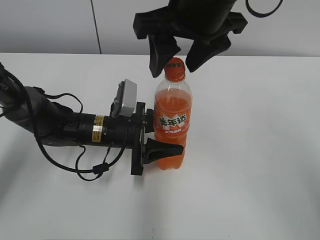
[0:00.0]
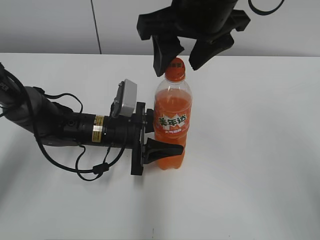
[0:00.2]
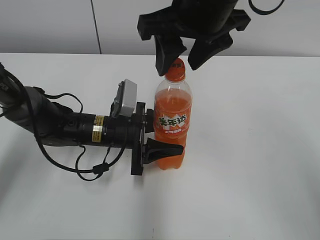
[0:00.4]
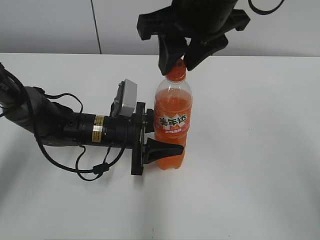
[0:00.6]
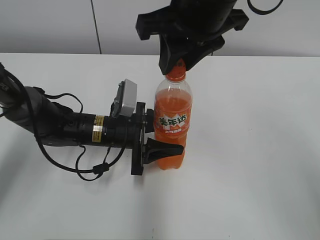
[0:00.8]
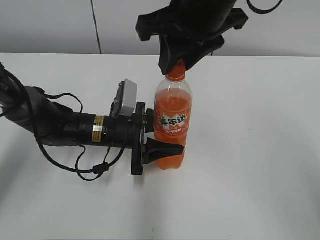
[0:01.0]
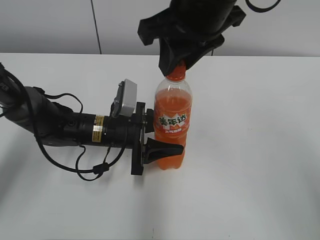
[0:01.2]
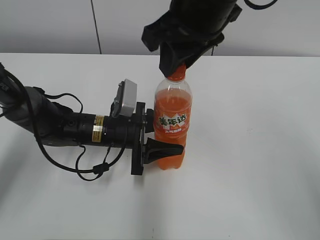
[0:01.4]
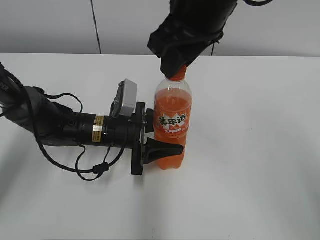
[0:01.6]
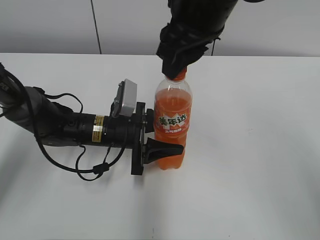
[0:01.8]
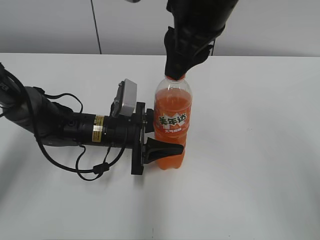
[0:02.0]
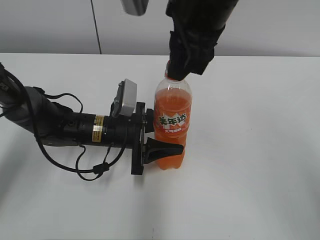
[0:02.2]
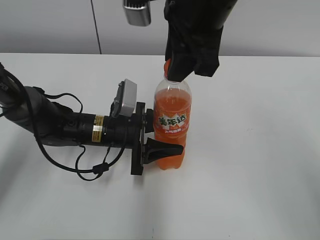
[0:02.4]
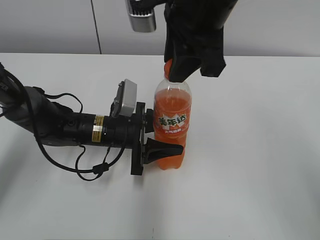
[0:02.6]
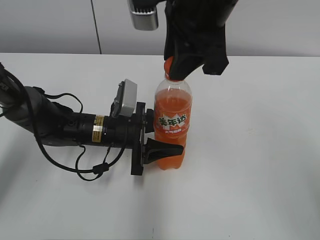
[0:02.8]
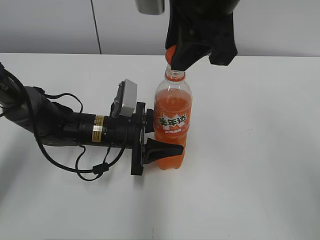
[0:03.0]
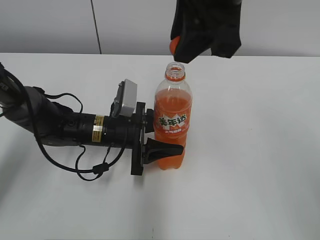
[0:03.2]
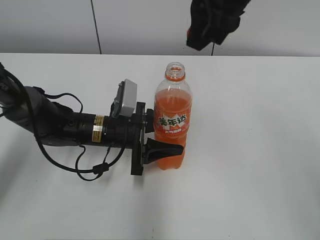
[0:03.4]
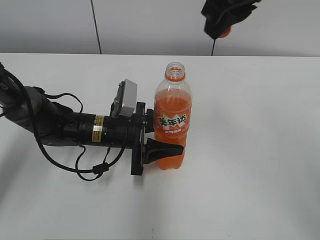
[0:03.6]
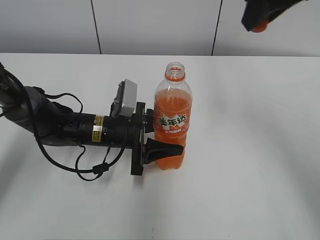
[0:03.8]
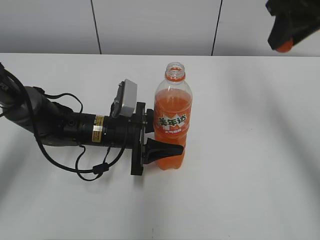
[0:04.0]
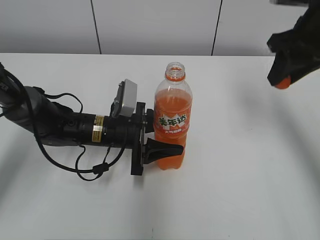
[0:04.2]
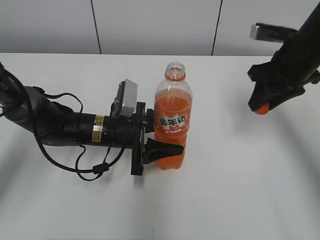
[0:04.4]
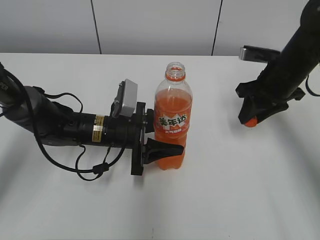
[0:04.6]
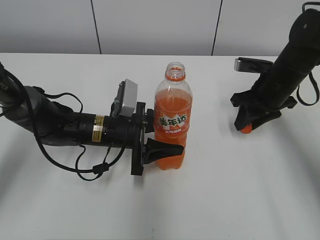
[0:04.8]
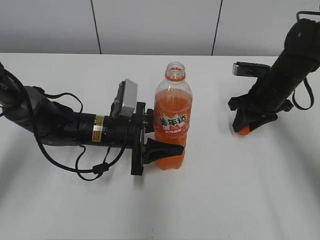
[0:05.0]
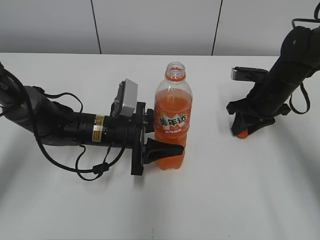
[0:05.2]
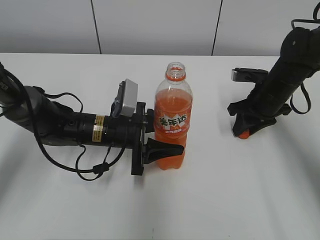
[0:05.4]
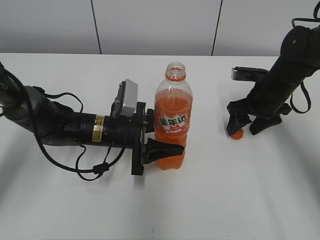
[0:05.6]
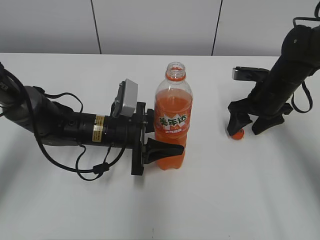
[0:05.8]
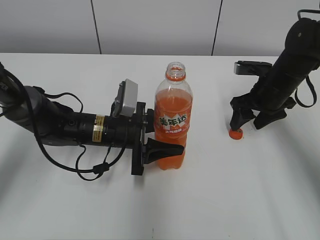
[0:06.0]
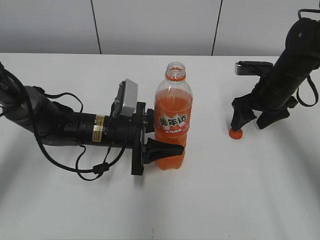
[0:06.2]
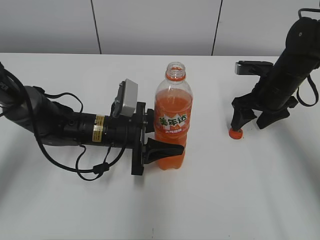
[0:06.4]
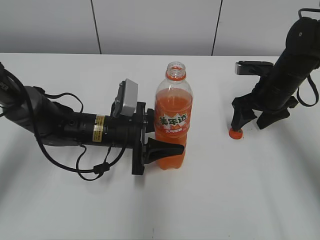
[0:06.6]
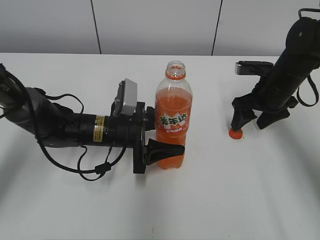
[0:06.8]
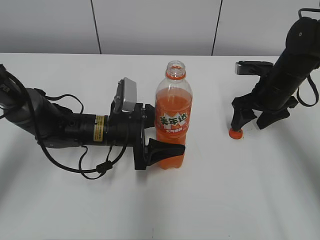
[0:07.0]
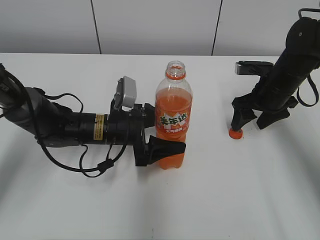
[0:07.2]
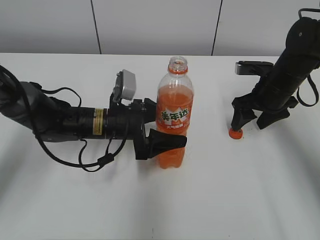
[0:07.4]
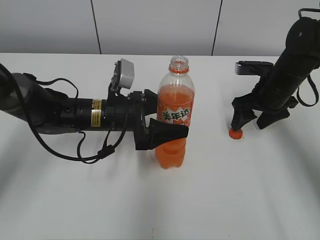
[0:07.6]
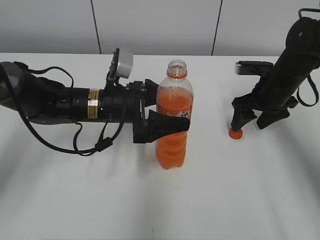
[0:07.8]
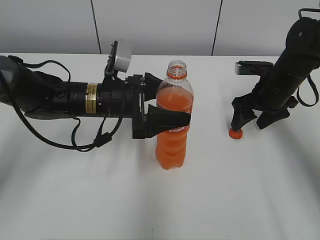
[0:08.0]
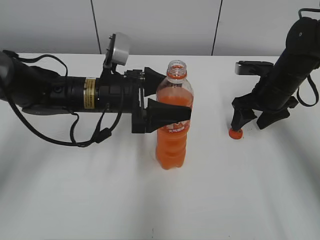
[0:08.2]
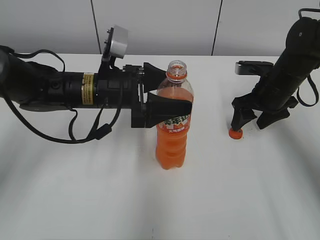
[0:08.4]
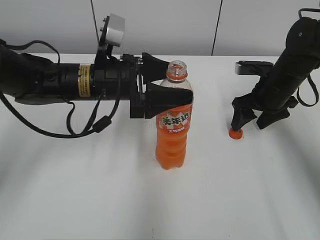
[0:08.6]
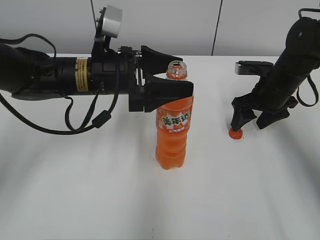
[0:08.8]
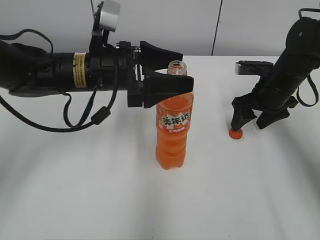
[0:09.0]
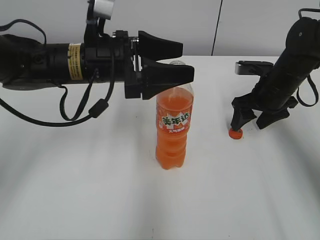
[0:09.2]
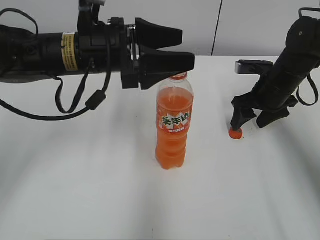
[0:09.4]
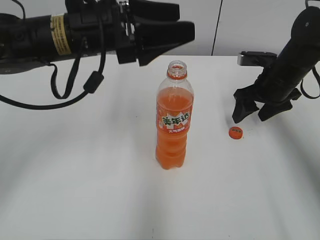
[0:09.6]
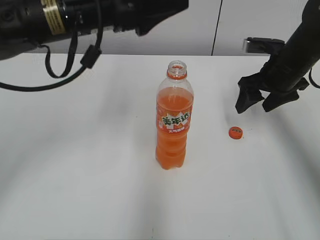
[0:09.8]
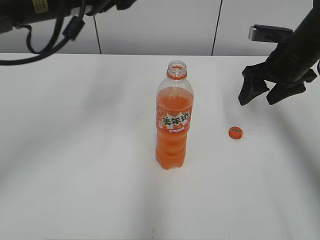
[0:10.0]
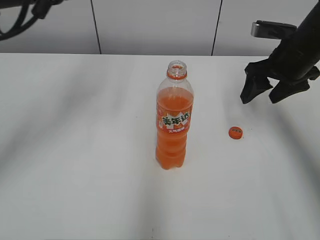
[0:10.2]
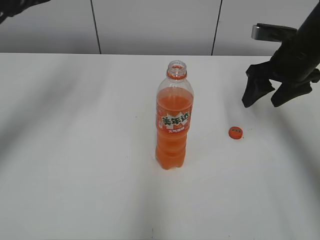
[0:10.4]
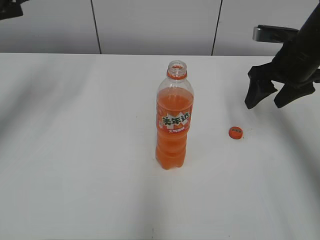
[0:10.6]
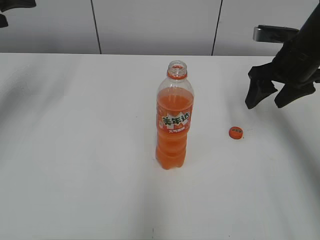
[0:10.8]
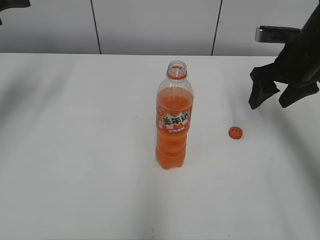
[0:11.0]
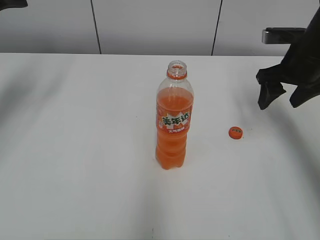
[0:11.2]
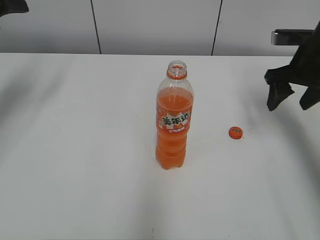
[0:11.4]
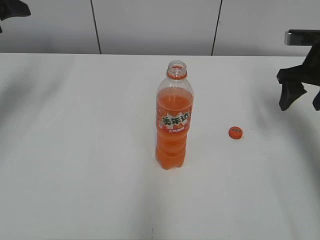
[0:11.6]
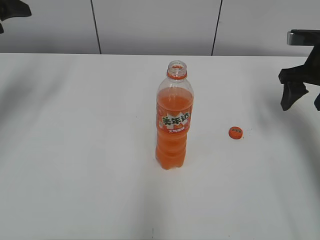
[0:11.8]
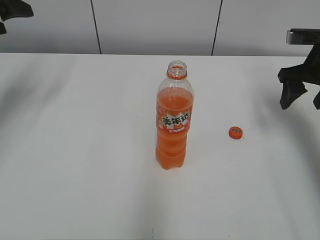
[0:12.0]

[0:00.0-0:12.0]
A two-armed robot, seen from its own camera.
Step, 0:00.0 to 0:02.6: Unscrew the bottle cap with the right gripper while holding the bottle with the left gripper.
Step, 0:03.0 to 0:06.0: Place the bottle cap on the table with the right gripper.
Step, 0:06.2 to 0:07.6: Place the bottle on the table with the left gripper.
0:00.0 to 0:01.6: The right gripper closes up.
0:03.0 to 0:04.4: The right gripper travels to the right, downward and forward by about 25 cm.
0:04.4 to 0:06.0: The right gripper goes roughly 10 cm downward, and opens up.
0:06.0 to 0:07.6: The left gripper opens its fingers.
0:07.6 to 0:09.0: The left gripper goes roughly 10 cm upward.
0:09.0 to 0:10.4: The left gripper goes about 20 cm to the left and upward. Meanwhile the right gripper shifts about 10 cm upward.
0:10.4 to 0:12.0: The left gripper moves to the left, approximately 10 cm, while the right gripper shifts about 5 cm to the right.

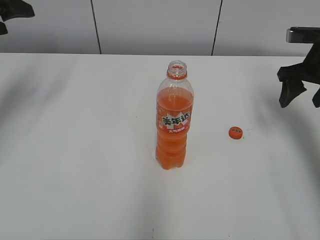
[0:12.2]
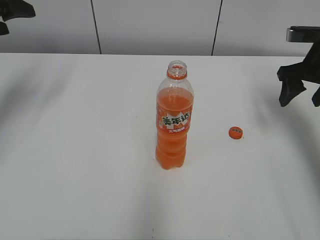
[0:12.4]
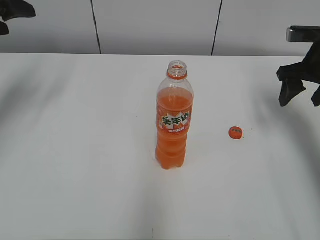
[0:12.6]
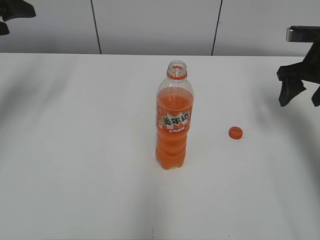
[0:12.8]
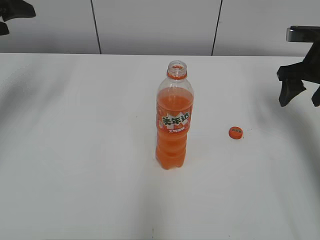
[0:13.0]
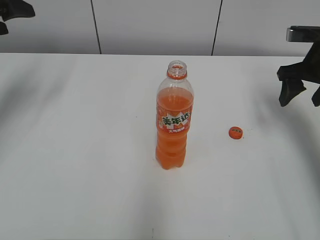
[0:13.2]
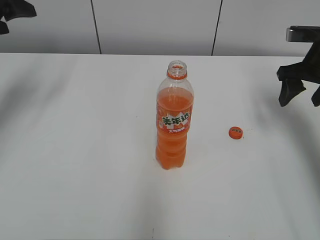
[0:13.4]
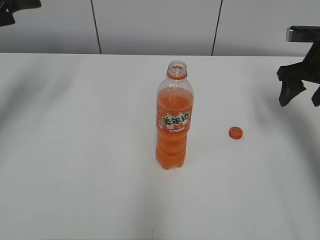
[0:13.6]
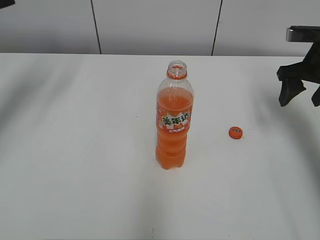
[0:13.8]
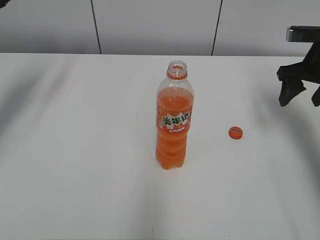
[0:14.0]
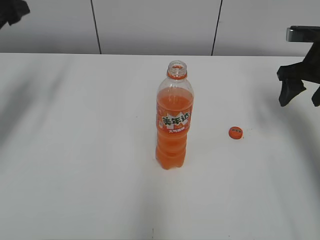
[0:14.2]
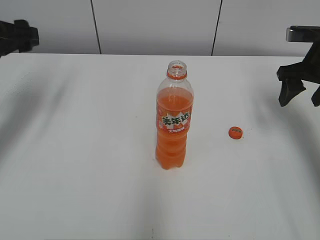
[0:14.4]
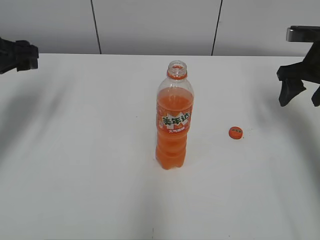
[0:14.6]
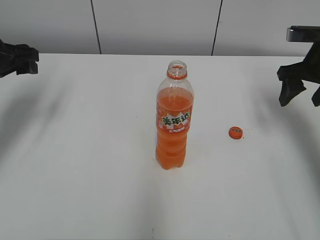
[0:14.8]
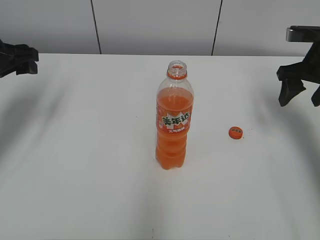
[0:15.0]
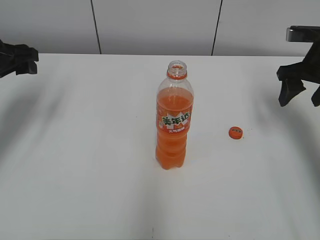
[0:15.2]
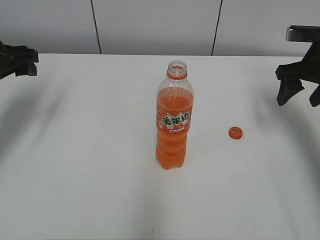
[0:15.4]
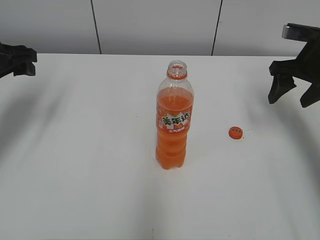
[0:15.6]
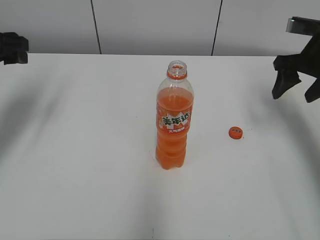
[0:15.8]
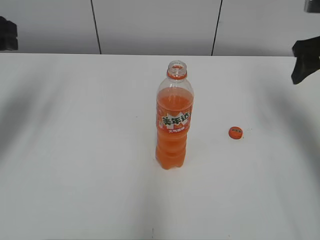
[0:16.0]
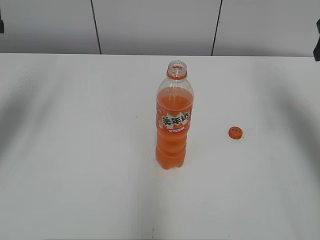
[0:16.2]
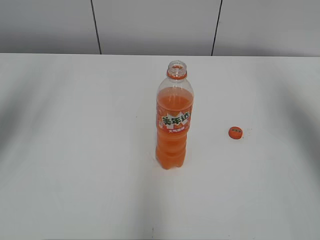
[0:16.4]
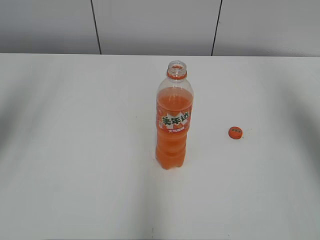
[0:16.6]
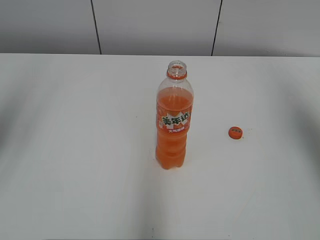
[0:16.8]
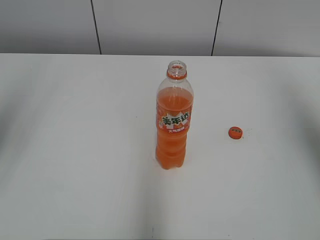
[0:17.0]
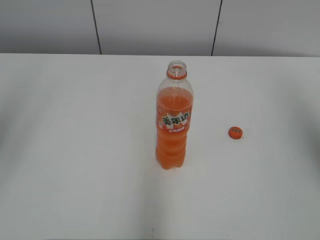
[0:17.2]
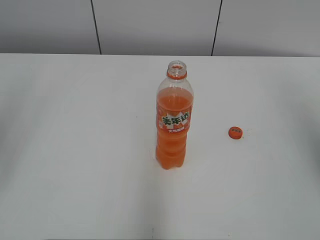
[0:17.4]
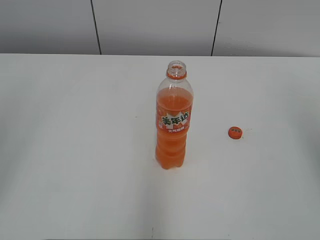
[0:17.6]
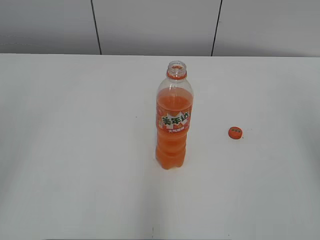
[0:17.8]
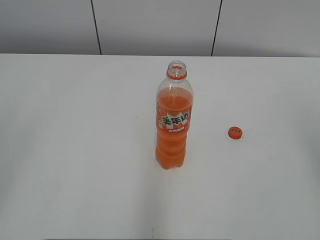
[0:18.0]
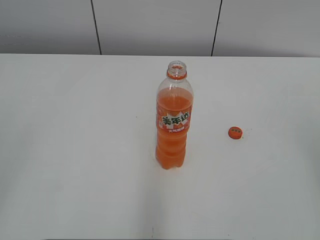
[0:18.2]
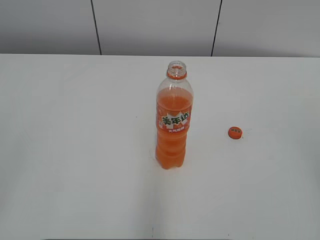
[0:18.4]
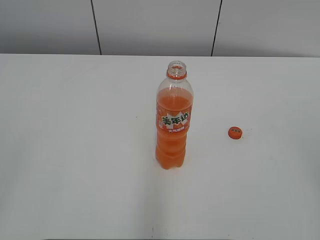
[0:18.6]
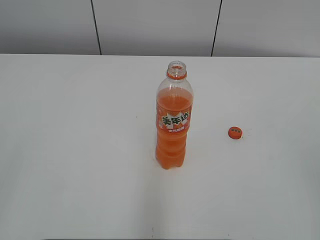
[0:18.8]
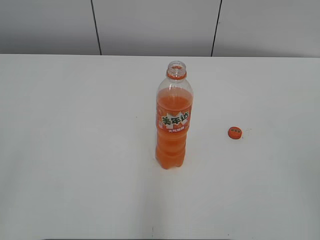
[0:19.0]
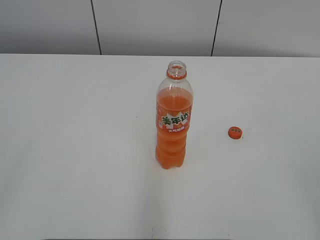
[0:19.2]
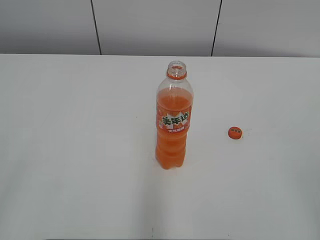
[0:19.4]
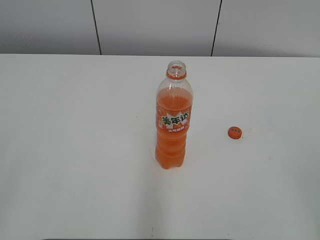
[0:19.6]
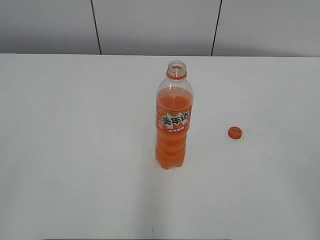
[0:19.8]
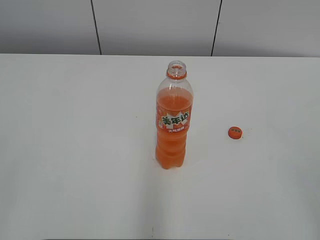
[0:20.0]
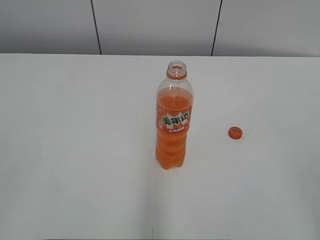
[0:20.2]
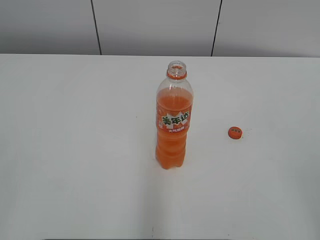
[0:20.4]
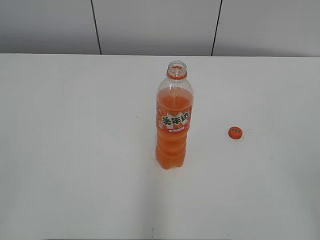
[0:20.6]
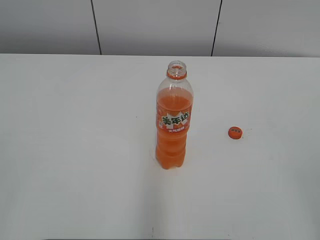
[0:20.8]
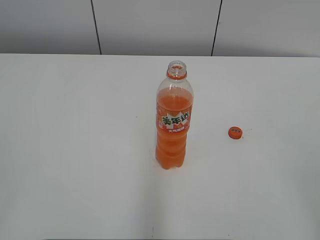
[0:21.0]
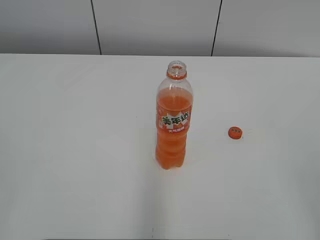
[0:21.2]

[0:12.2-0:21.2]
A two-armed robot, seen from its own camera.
0:12.2 to 0:13.8: The grippers make only small movements.
0:13.8 to 0:15.2: The left gripper shifts some 5 cm downward.
0:15.2 to 0:16.6: The two grippers go approximately 20 cm upward and backward.
0:16.6 to 0:18.2: Both grippers move backward, some 20 cm.
0:19.8 to 0:21.2: The two grippers keep their place.
